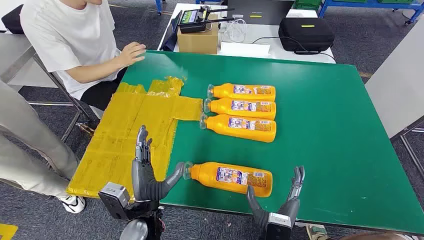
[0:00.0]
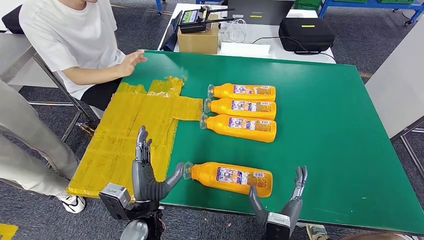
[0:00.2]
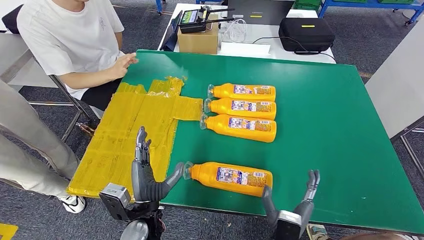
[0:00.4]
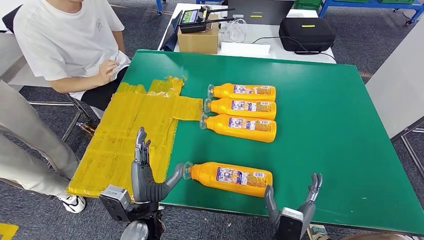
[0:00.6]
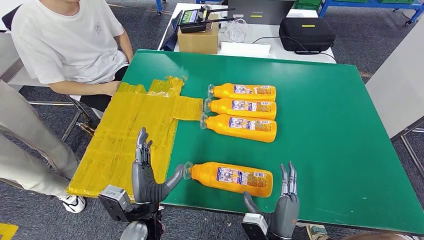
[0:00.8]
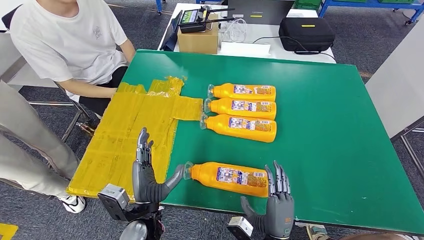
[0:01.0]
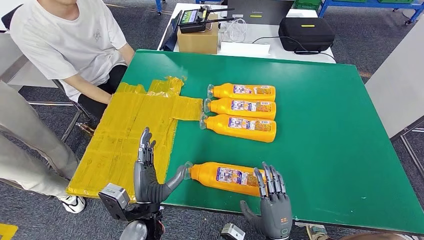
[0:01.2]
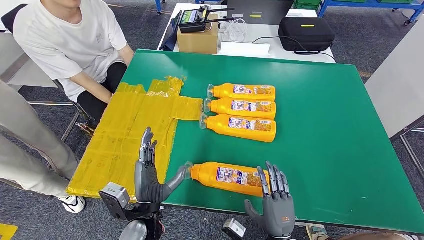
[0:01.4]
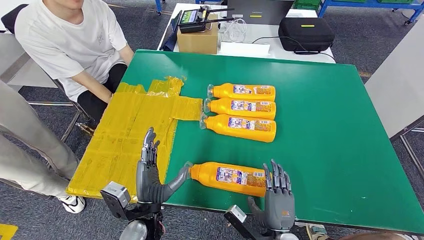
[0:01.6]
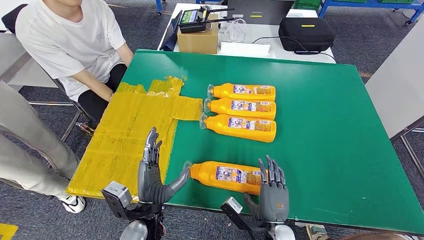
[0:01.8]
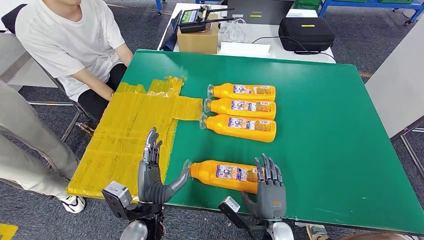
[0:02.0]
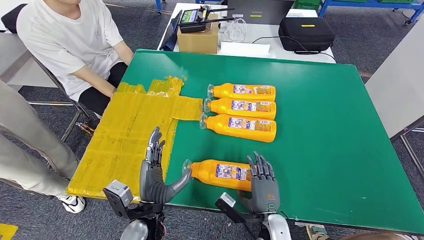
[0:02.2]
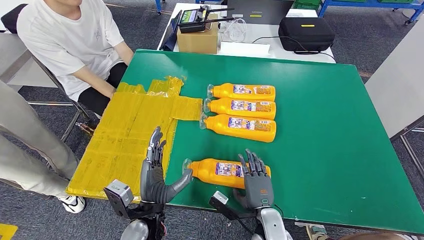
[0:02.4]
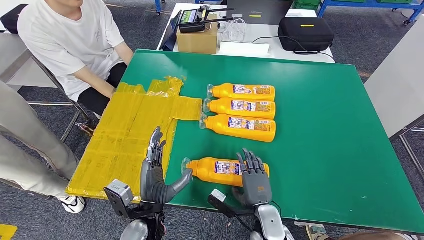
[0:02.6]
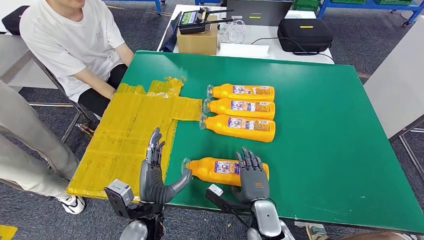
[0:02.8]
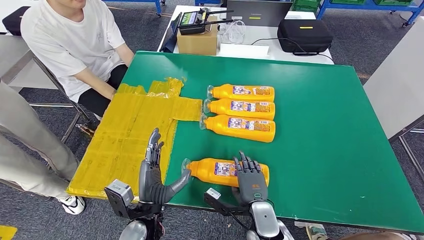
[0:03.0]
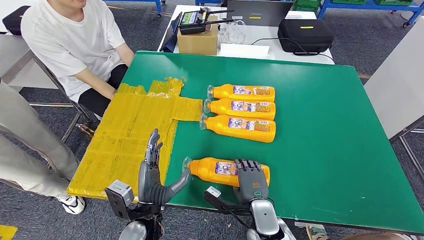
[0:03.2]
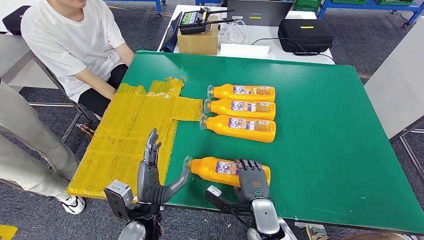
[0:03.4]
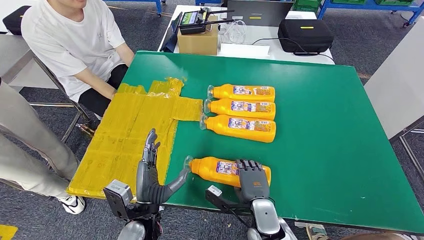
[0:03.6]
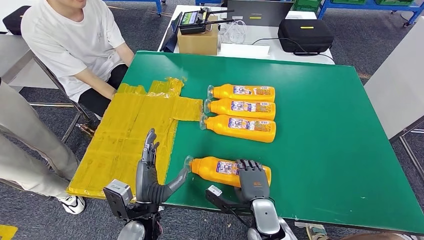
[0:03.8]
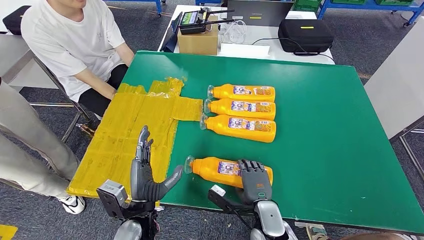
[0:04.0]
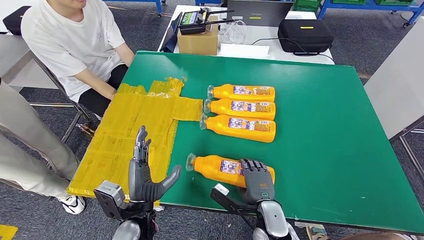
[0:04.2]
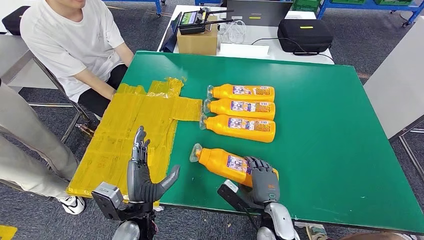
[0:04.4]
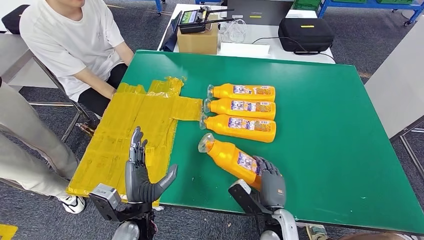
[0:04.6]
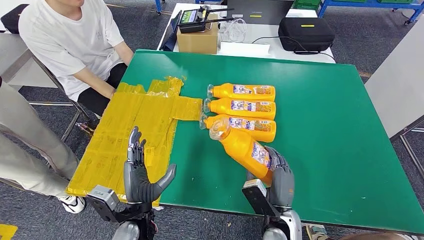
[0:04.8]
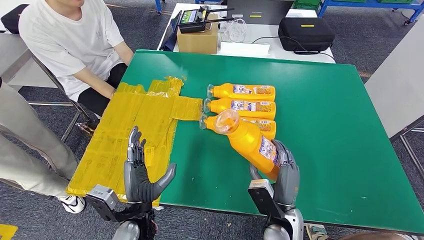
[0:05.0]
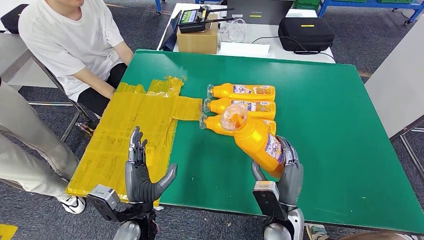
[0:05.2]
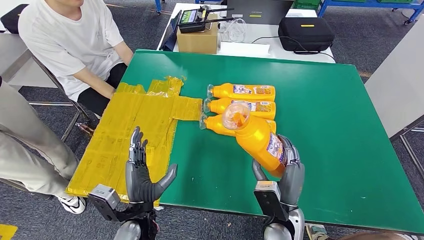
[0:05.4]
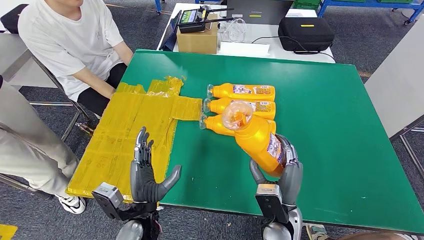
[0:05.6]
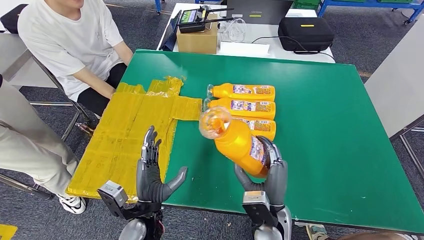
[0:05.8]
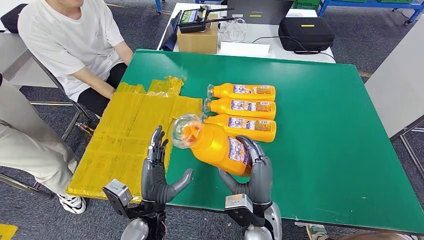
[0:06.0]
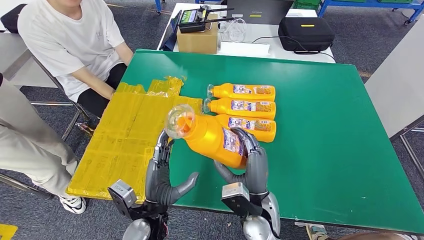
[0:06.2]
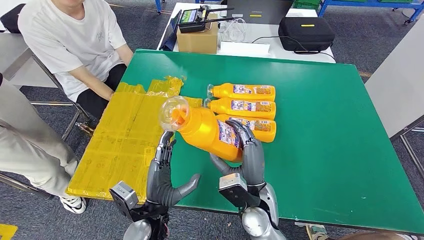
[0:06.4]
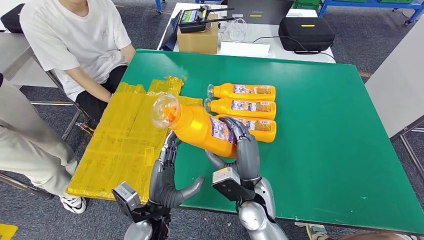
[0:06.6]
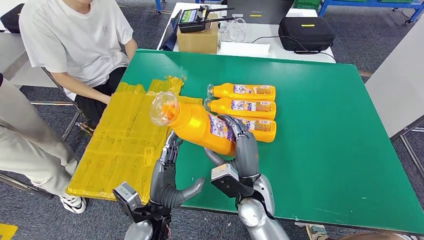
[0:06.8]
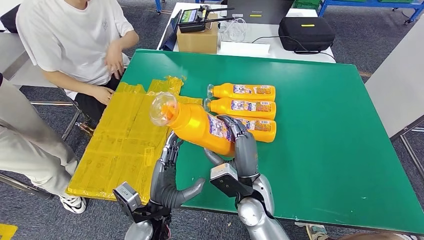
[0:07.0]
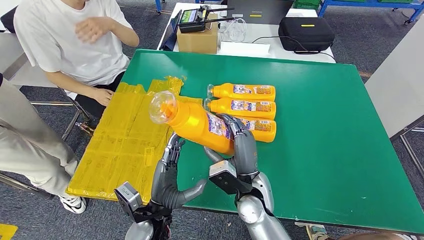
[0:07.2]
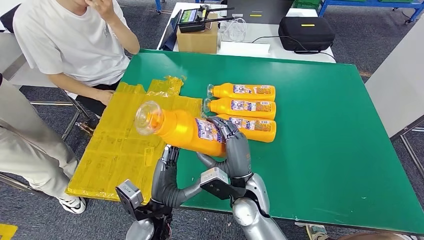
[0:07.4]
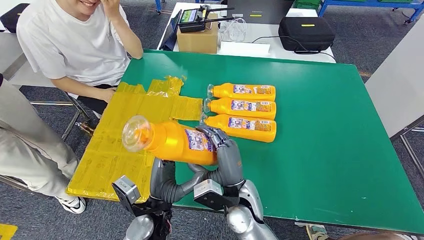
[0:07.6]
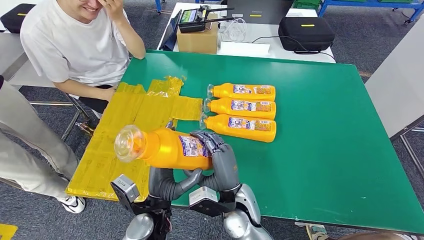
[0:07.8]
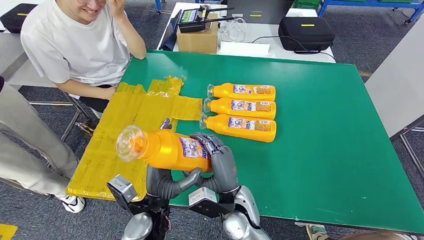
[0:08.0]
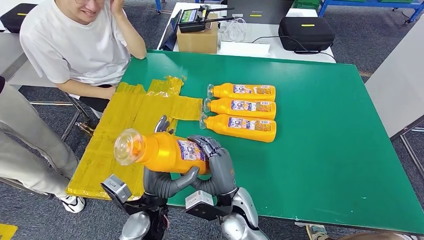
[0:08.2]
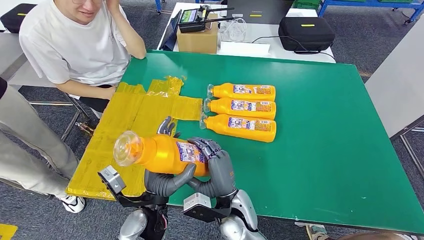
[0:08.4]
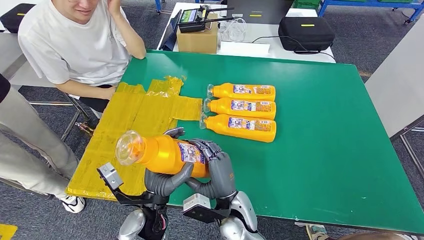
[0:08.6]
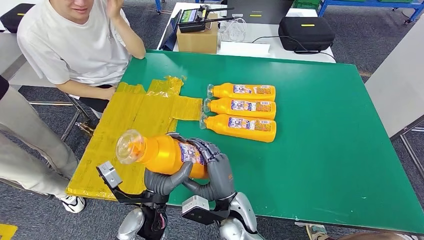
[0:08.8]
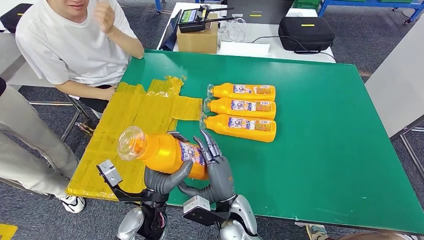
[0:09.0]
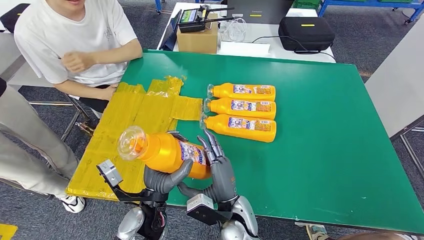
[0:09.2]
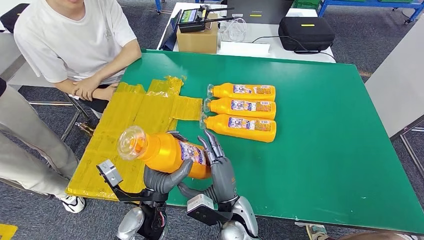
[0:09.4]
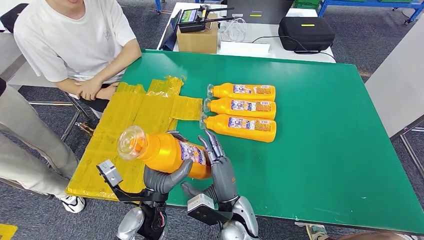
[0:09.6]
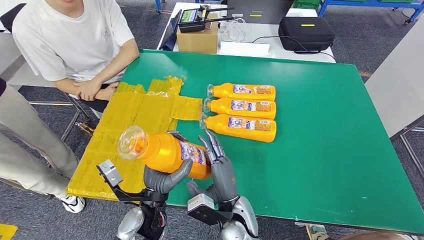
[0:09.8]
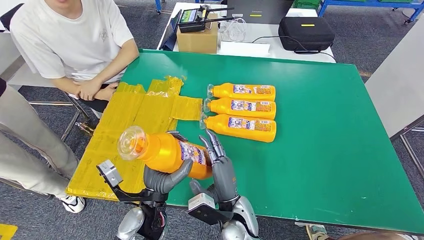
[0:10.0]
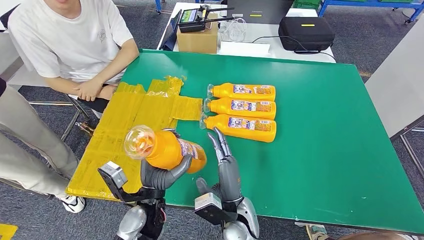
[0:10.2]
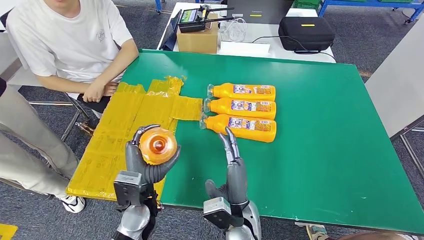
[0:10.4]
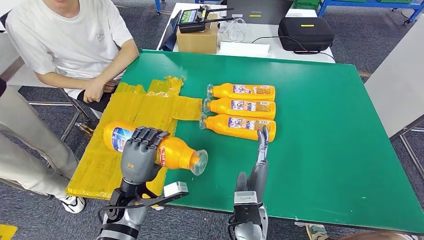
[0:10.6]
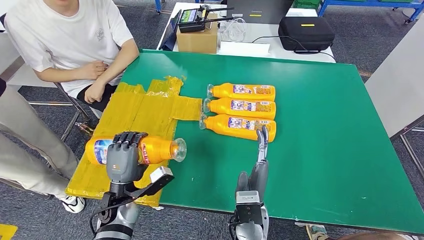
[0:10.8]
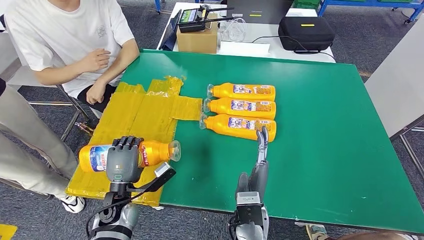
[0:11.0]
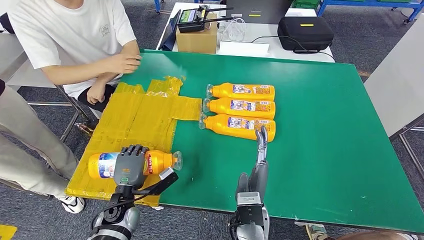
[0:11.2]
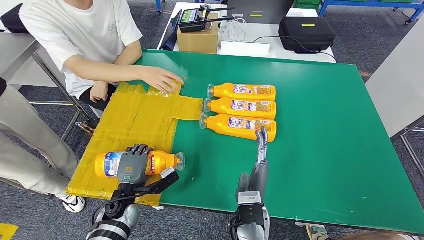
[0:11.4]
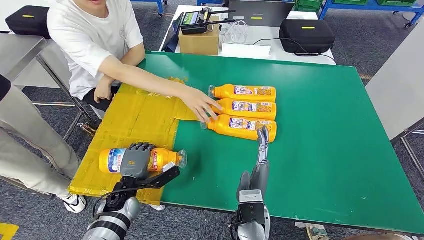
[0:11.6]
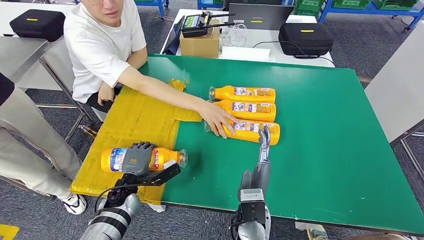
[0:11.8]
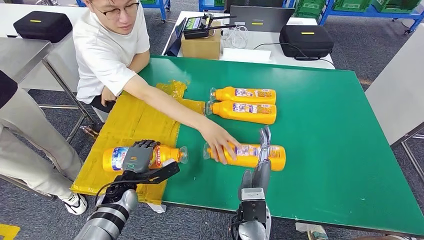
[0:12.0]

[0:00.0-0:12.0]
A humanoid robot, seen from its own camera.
Step, 0:00.0 to 0:05.4: Take the bottle from the table.
0:01.6 to 0:03.0: The right hand goes approximately 5 cm forward.
0:04.4 to 0:06.0: The right hand heads upward, covering approximately 10 cm.
0:06.0 to 0:07.6: The right hand shifts by some 5 cm.
0:07.6 to 0:09.0: There are only small adjustments of the hands.

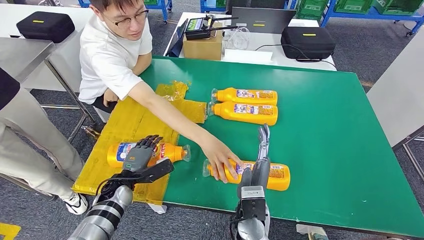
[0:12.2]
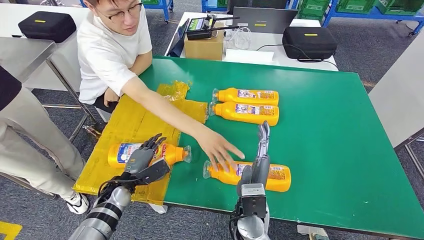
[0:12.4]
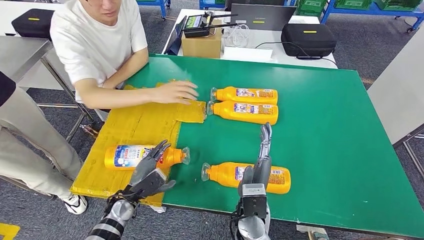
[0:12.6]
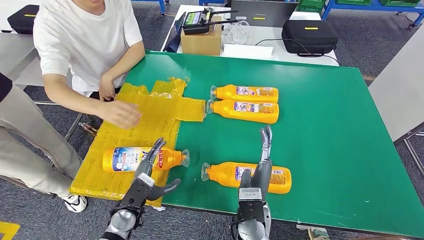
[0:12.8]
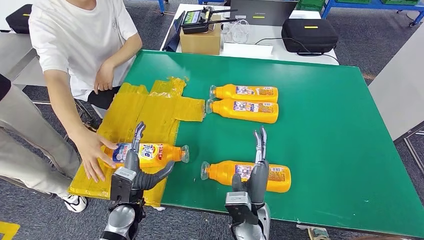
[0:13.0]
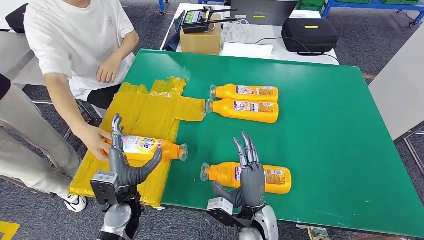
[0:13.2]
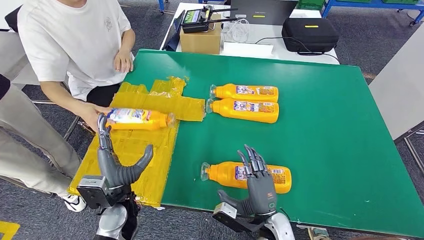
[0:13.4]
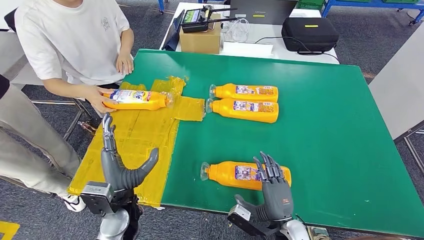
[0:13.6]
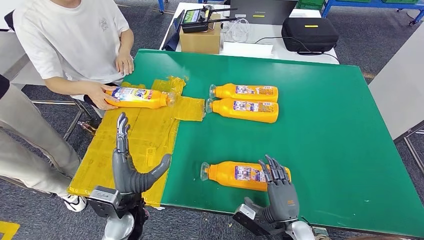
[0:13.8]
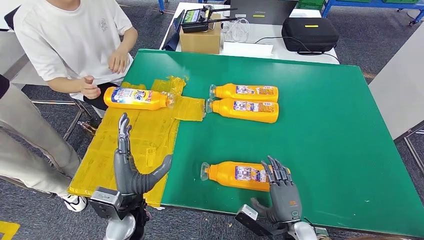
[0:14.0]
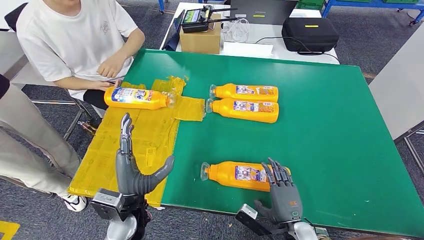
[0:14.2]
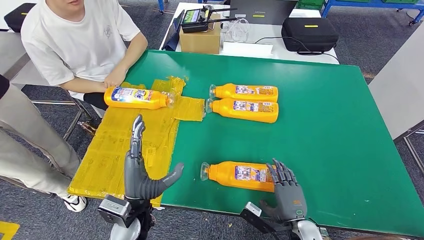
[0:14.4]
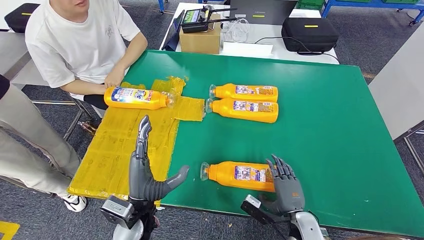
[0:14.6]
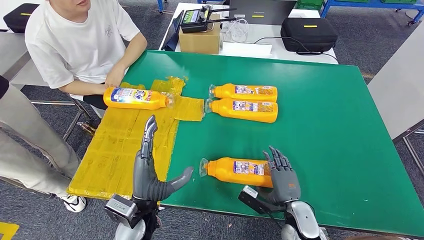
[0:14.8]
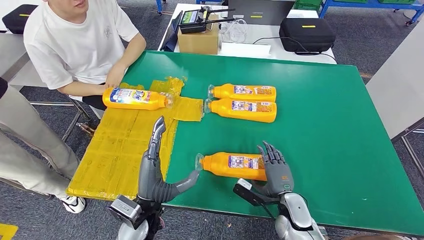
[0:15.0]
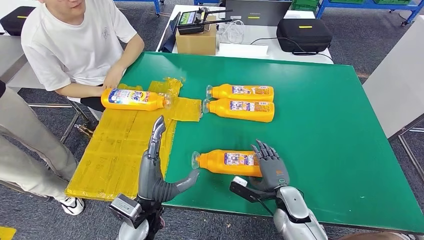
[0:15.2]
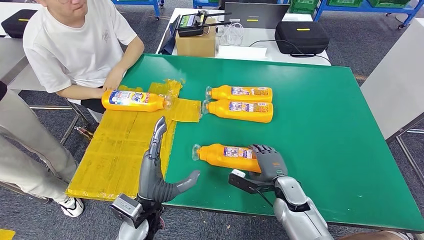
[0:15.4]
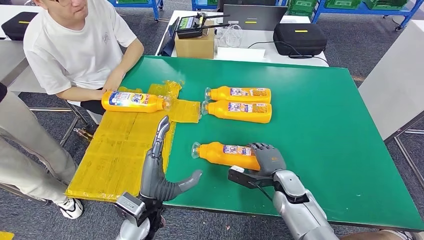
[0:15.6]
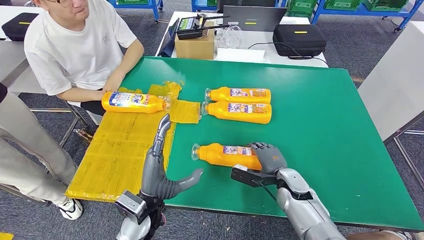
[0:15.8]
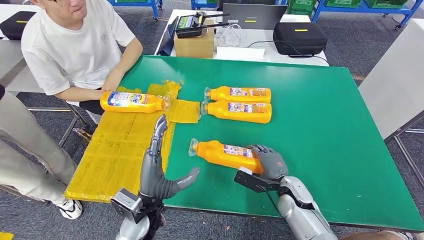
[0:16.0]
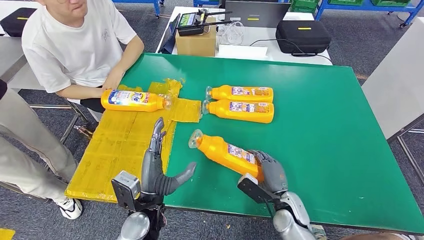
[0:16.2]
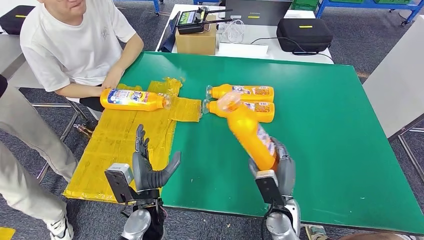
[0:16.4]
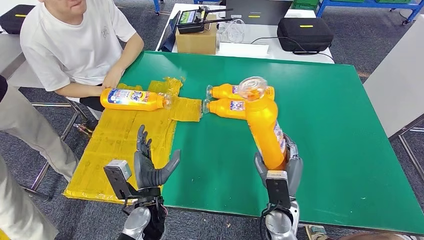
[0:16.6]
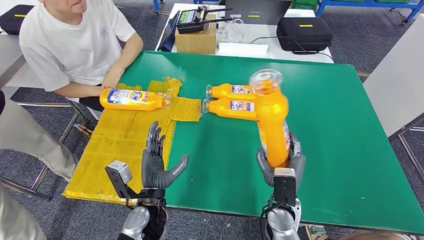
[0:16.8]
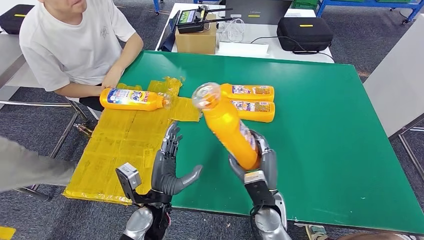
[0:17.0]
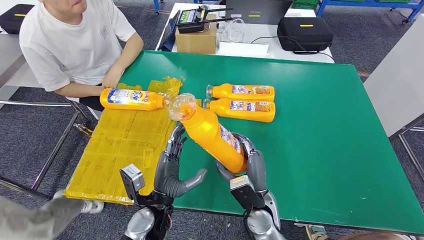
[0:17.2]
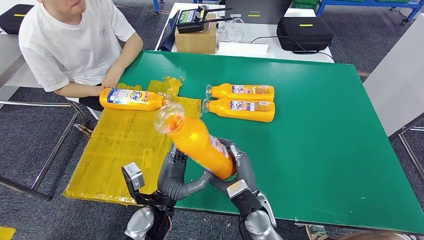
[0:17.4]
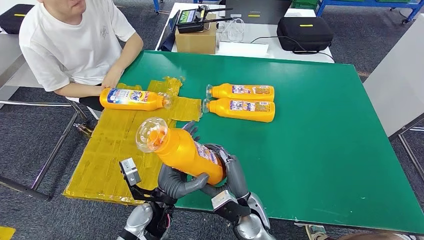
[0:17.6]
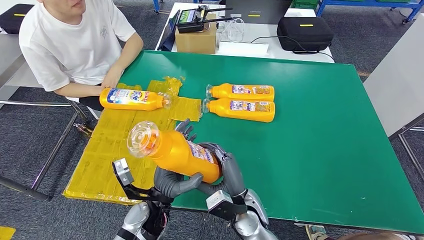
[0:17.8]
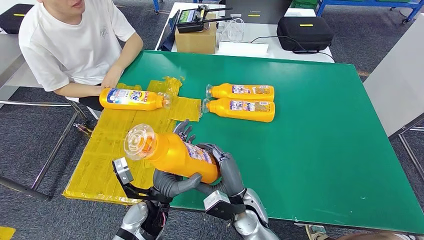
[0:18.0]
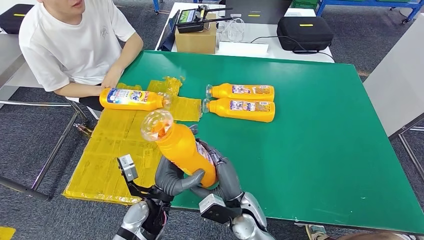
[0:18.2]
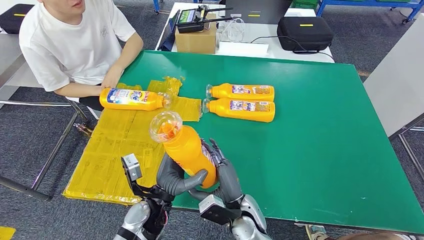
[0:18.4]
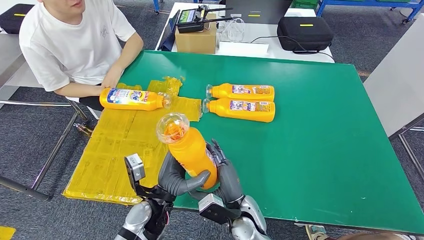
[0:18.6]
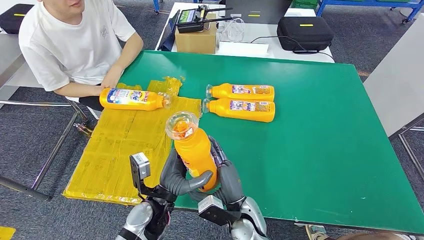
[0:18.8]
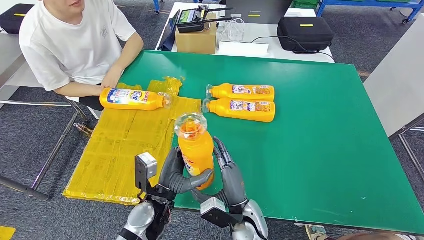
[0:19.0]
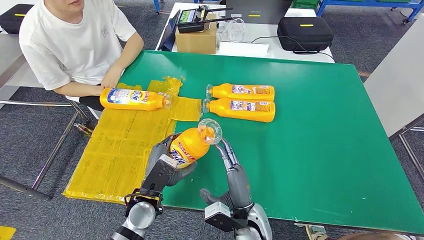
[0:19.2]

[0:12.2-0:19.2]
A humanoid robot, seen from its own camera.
Step, 0:13.6 to 0:16.6: Pick up the bottle from the table.
